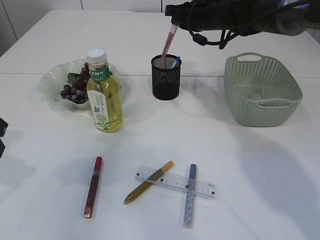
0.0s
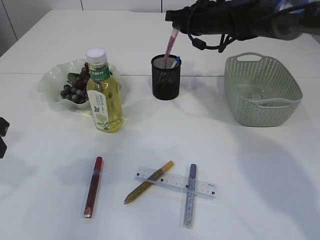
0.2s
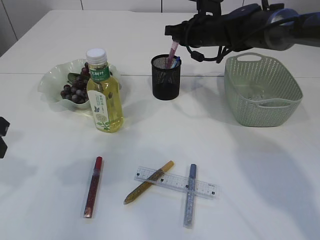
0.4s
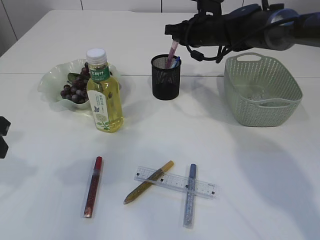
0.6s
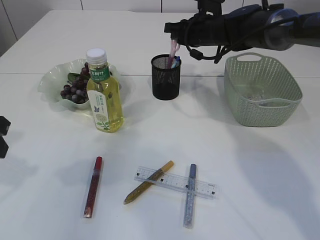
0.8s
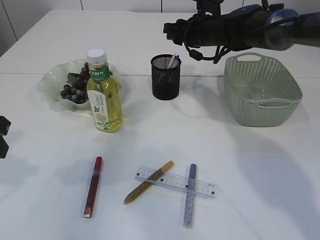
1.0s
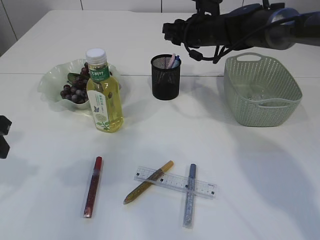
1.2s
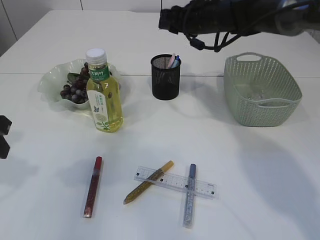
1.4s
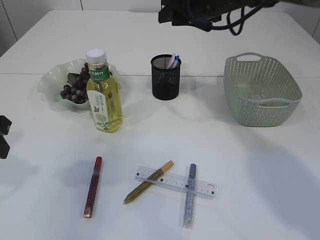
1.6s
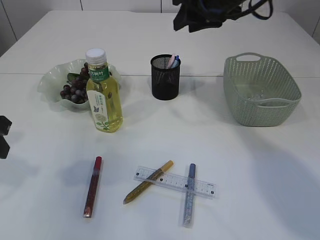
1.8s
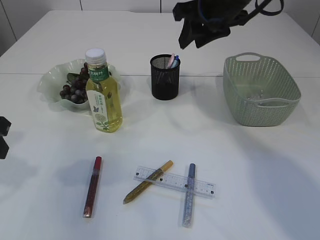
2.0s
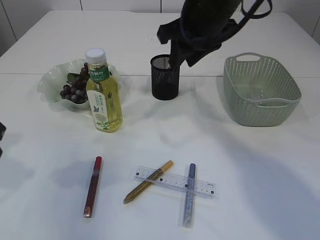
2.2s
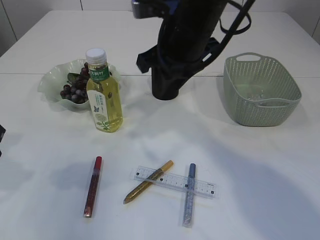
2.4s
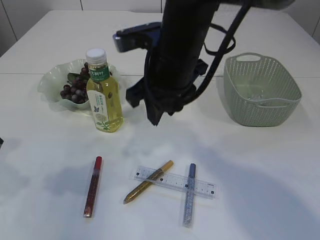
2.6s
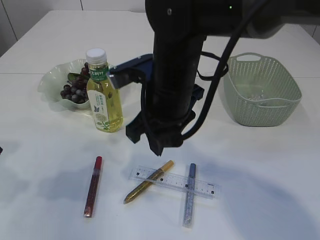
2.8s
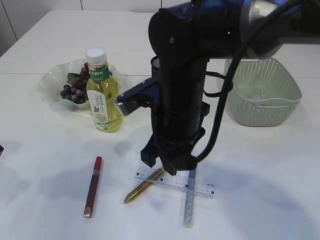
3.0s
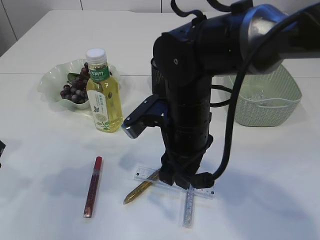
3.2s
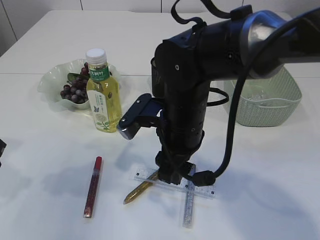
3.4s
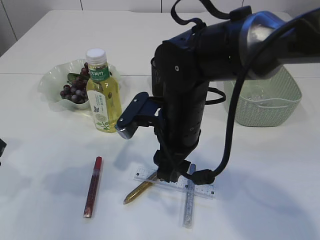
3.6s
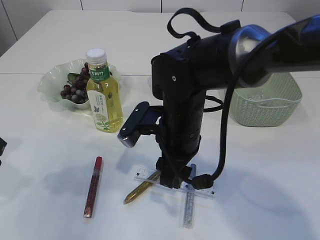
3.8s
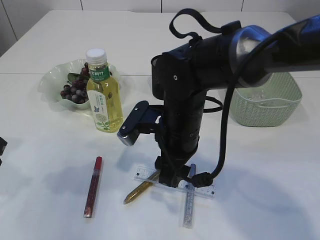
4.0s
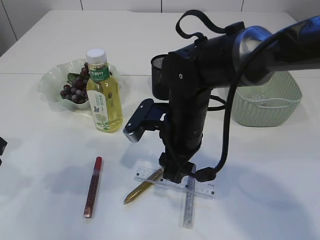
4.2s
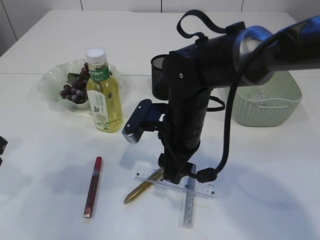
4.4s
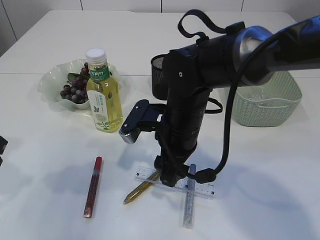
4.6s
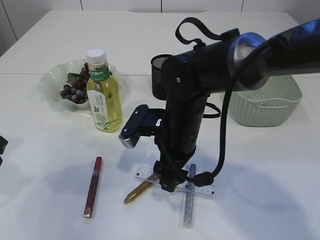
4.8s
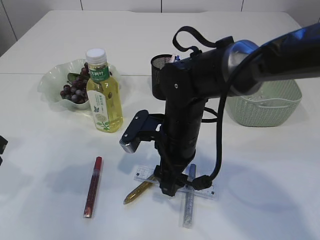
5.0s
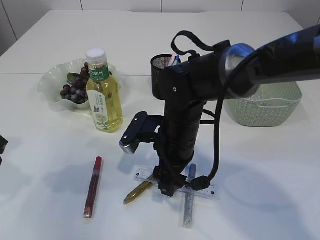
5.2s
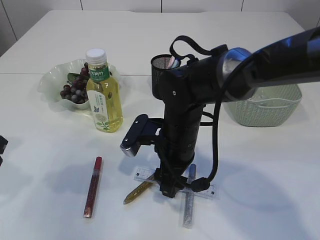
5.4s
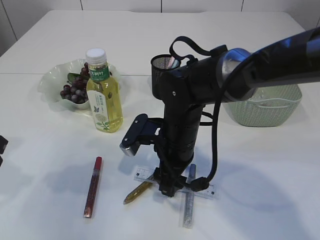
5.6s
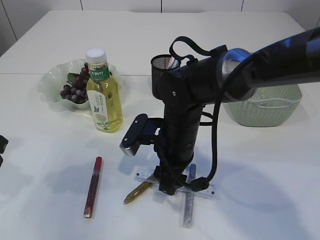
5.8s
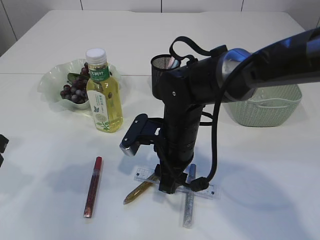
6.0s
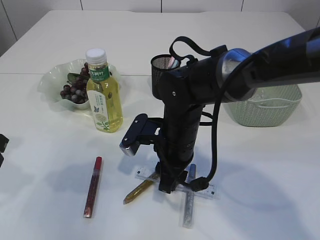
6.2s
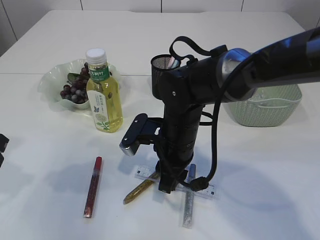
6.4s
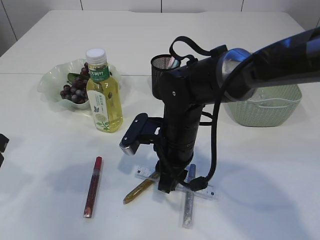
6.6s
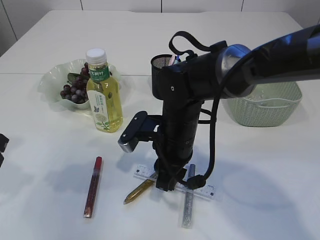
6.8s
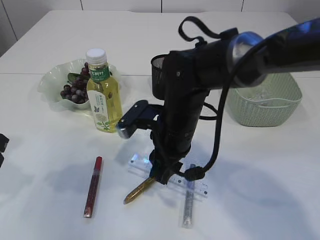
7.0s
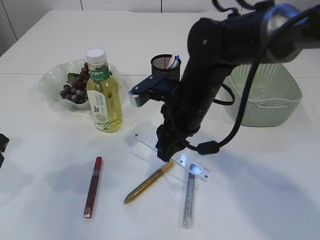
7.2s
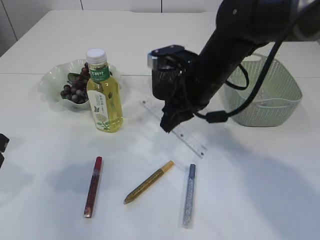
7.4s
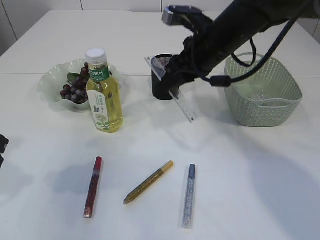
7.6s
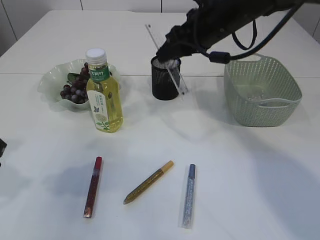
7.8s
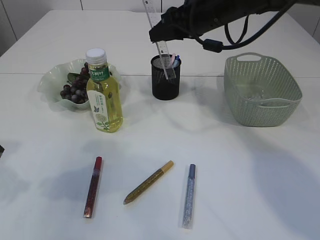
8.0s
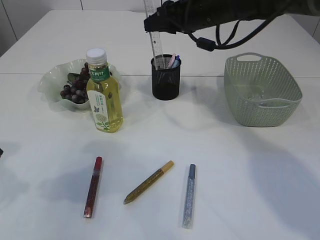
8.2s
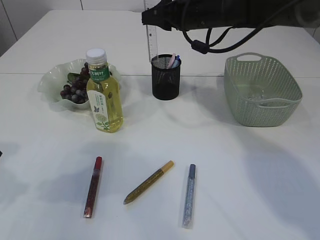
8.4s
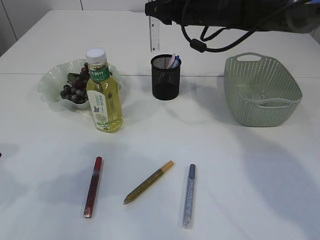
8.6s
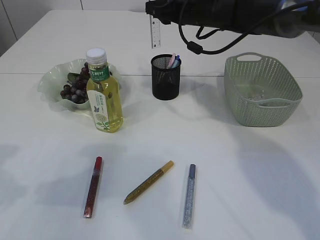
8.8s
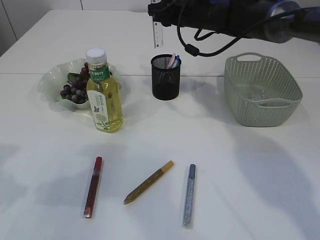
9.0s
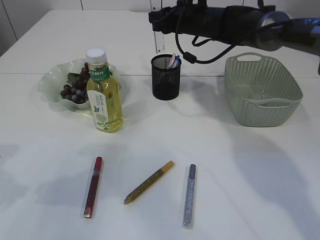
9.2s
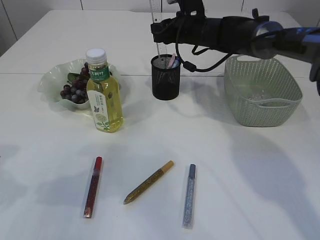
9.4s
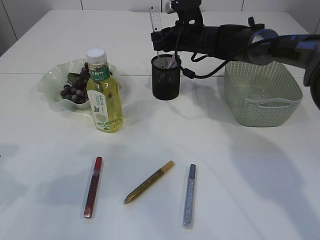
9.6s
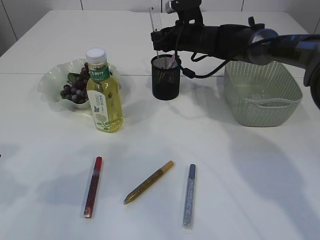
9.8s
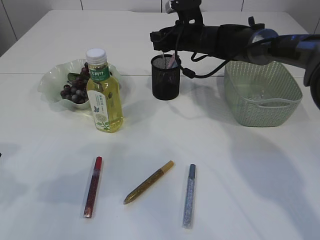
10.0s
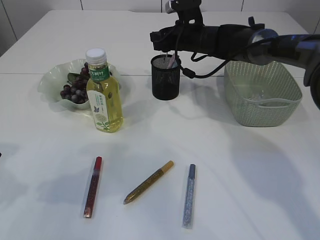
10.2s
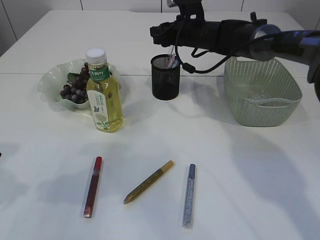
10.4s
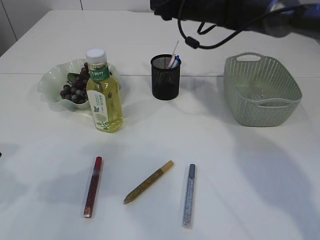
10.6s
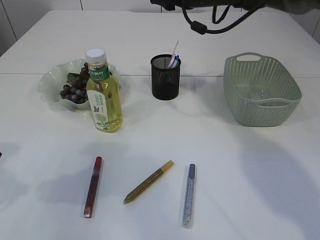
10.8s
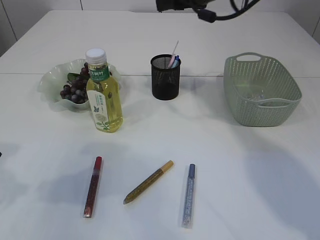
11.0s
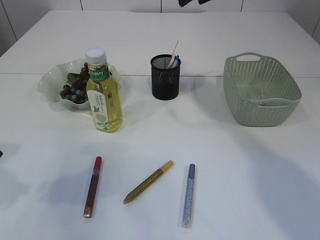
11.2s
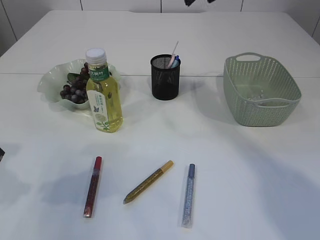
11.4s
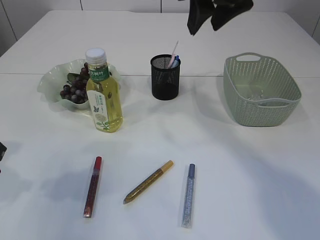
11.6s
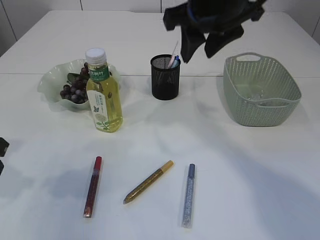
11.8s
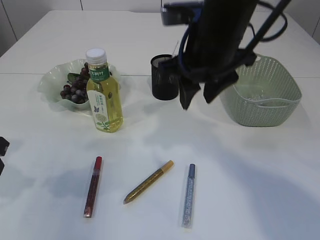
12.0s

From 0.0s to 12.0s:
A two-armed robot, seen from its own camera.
Step, from 1.4s to 7.2s: pick up the ruler.
Step, from 7.4s to 10.4s: Place the ruler into the pen holder.
From 0.0s to 1.6s: The right gripper ends up approximately 5 cm from where it was, and opens its fingers.
From 1.6s to 3.0s: The right gripper heads backward, to the left and downward, covering some 20 cm.
From 3.0s to 4.4s: The right gripper is displaced downward by about 5 cm.
From 4.4s to 6.0s: The grippers move only a little.
From 6.0s to 7.6s: The right gripper moves upward, forward and to the right, some 15 cm.
From 7.6s to 9.0s: The right gripper moves forward, about 15 cm.
From 9.0s to 10.4s: The right gripper shifts some 5 cm downward.
From 10.4s to 12.0s: The right gripper is displaced backward and upward by approximately 25 cm.

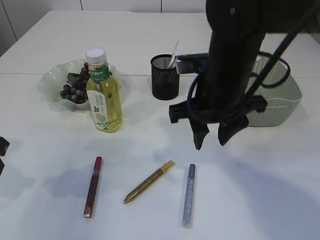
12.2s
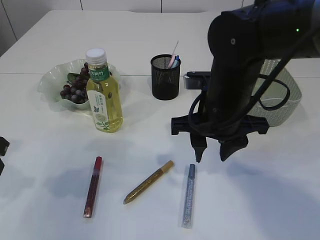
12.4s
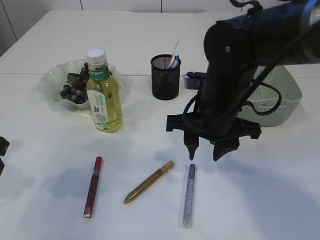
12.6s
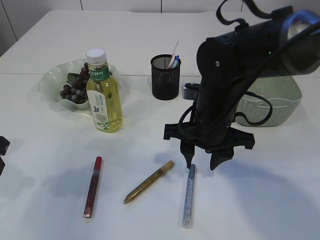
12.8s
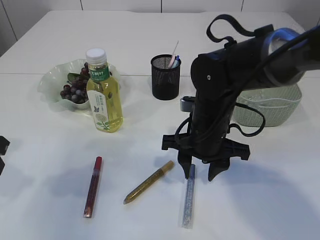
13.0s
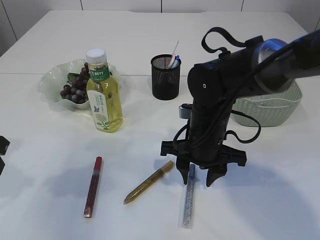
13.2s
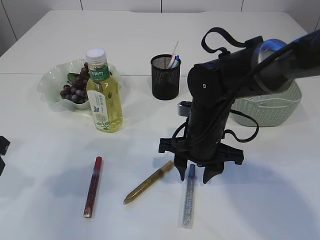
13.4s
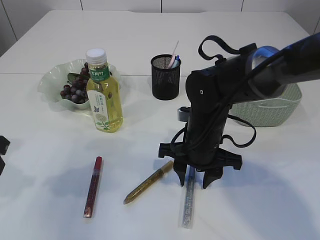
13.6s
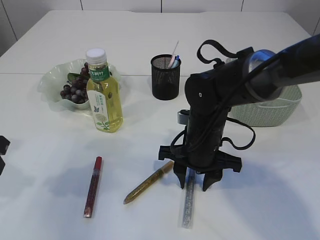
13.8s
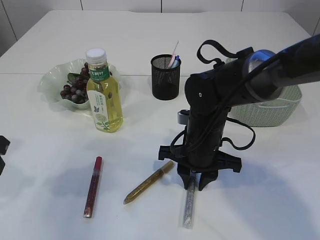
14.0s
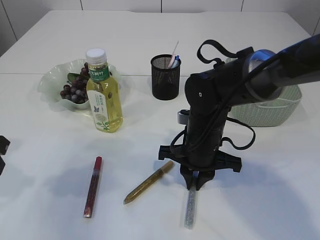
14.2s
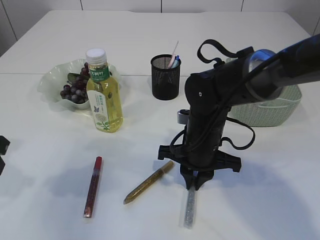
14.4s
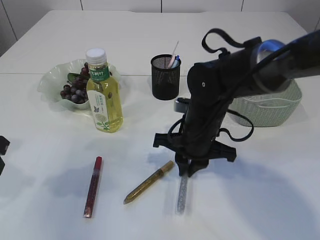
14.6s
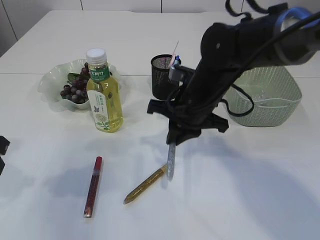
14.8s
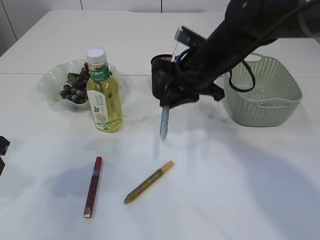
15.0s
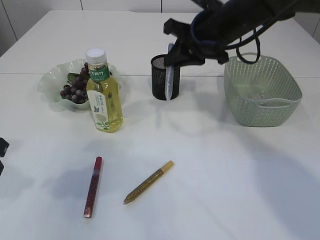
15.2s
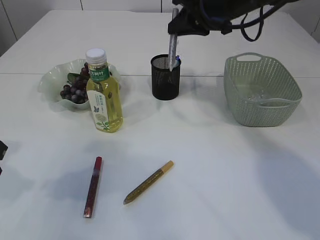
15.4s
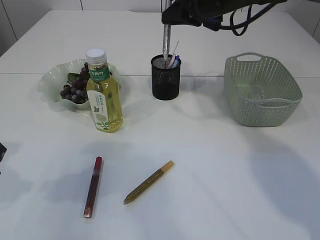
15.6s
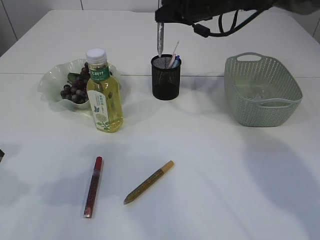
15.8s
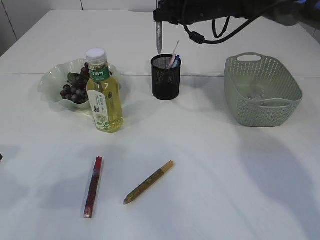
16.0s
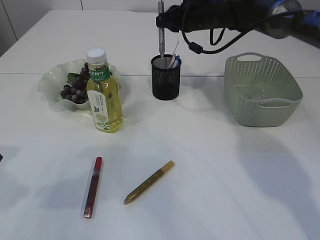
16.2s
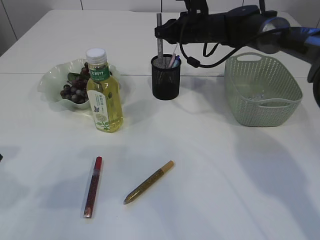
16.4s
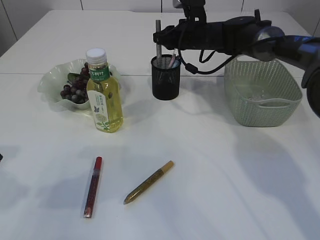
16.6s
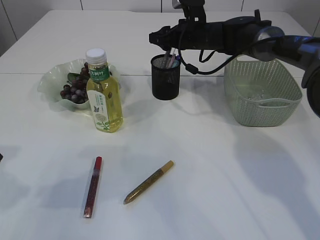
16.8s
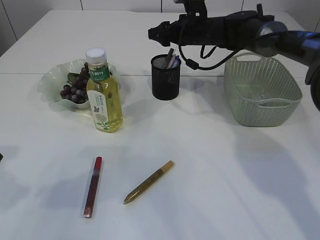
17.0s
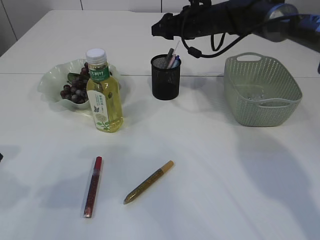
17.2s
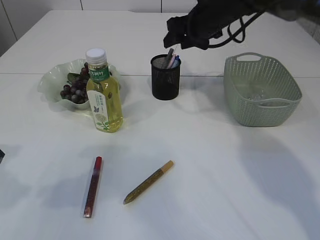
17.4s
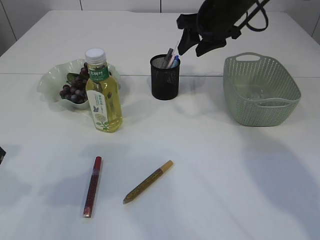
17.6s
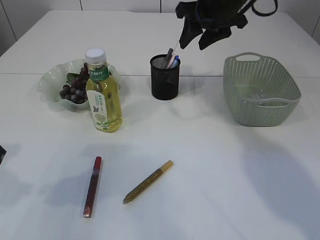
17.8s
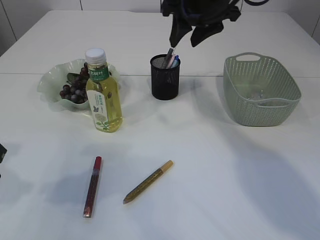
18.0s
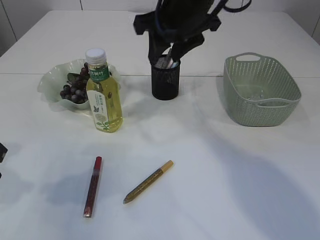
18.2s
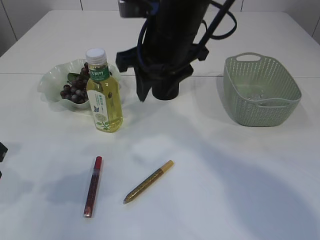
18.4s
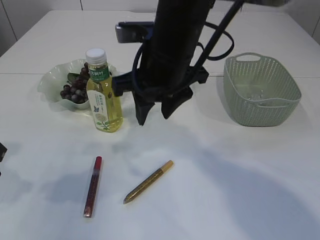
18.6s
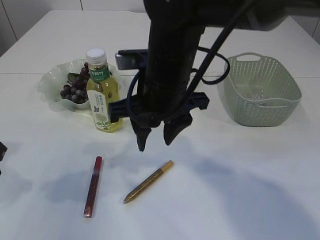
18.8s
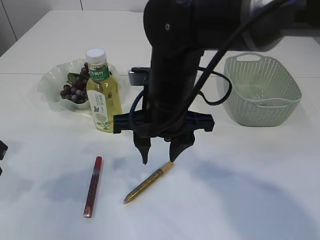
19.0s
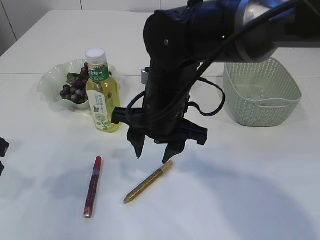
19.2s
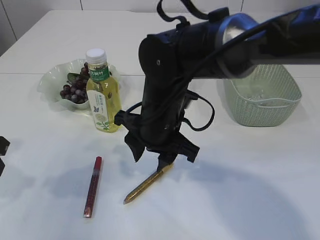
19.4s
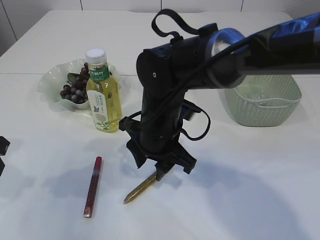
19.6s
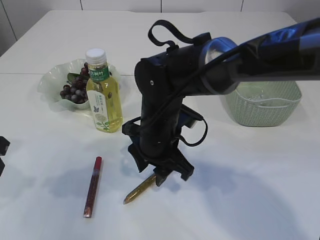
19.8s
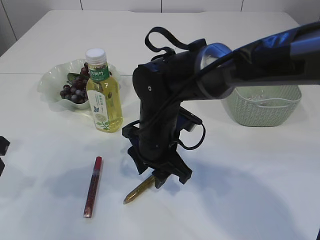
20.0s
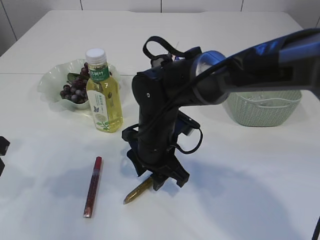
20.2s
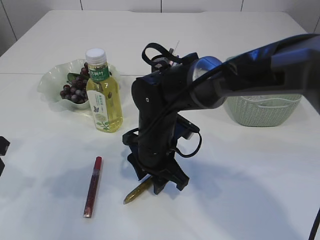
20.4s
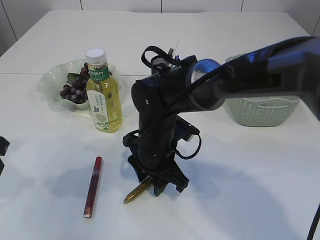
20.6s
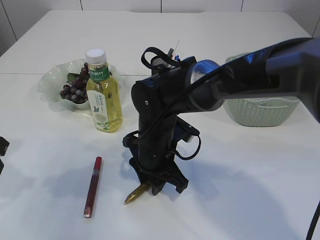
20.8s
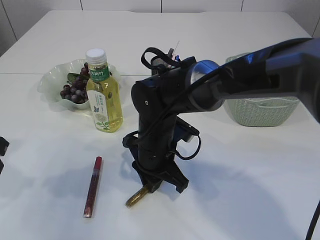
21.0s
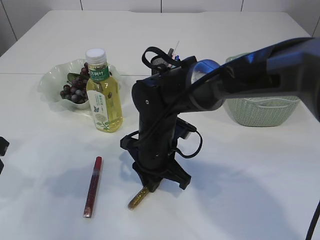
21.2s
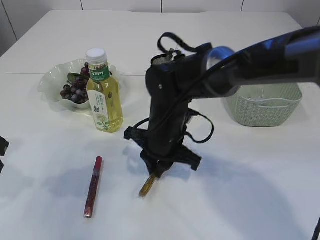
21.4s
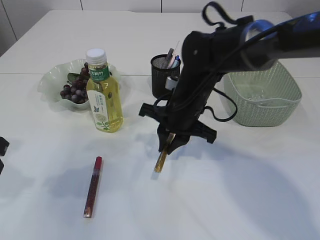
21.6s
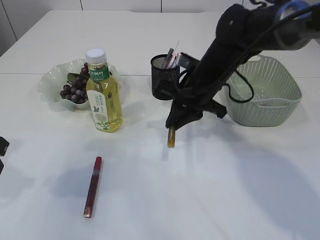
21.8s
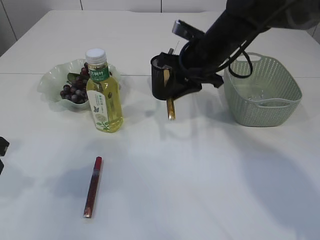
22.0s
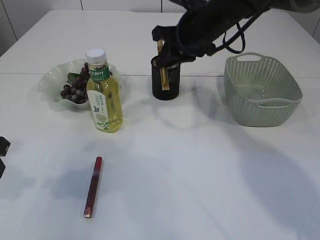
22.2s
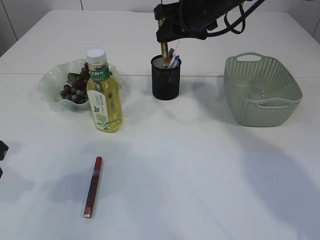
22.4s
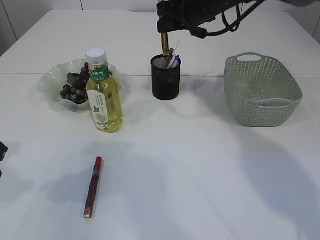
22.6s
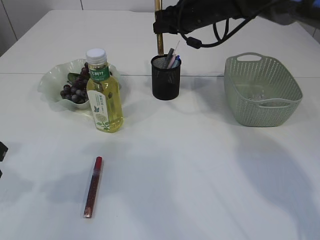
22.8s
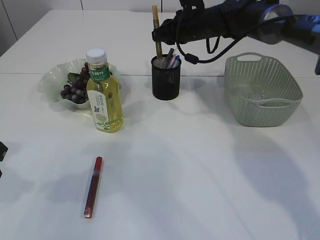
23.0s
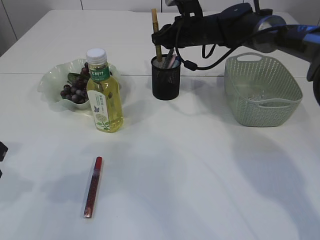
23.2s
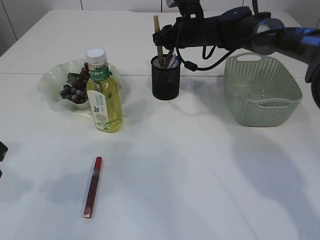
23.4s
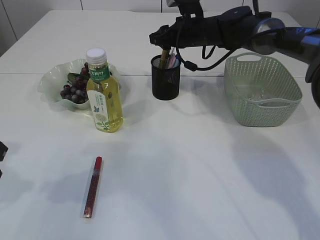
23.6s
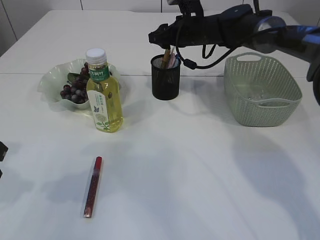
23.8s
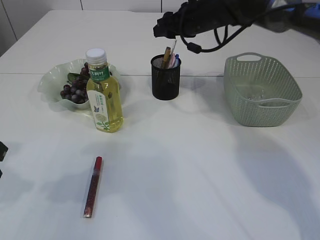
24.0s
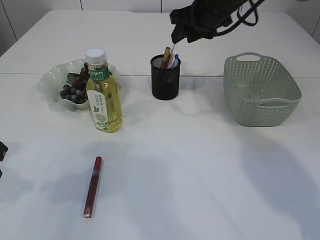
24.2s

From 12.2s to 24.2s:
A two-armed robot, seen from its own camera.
Step, from 12.2s to 14.8s: pick up the silver glue.
Step, from 15.0s to 17.4s: place the silver glue into the pen holder.
Step, from 17.6s to 21.6s: pick up the yellow glue.
Step, from 21.8s to 23.8s: place the yellow glue into the pen holder.
From 12.2s to 13.8s: The right gripper is displaced downward by some 10 cm.
From 13.8s to 15.2s: The right gripper shifts about 15 cm upward and forward, and closes.
From 15.2s to 16.6s: The right gripper goes approximately 15 cm forward and downward.
From 16.6s to 18.2s: The right gripper heads backward and upward, covering approximately 20 cm, and opens.
From 18.2s to 19.8s: The right gripper moves downward and backward, roughly 20 cm.
From 19.8s to 21.2s: The right gripper closes its fingers.
From 21.2s to 22.6s: The right gripper is displaced upward, forward and to the right by some 25 cm.
From 22.6s to 24.2s: The right gripper goes downward and returns, roughly 10 cm each way, and opens its fingers.
